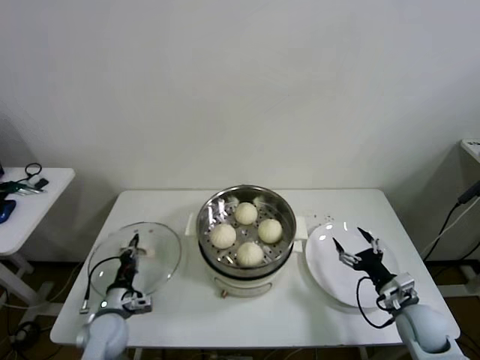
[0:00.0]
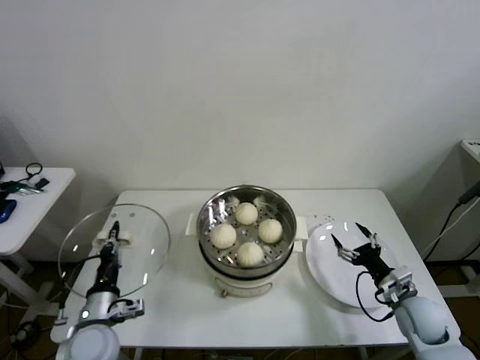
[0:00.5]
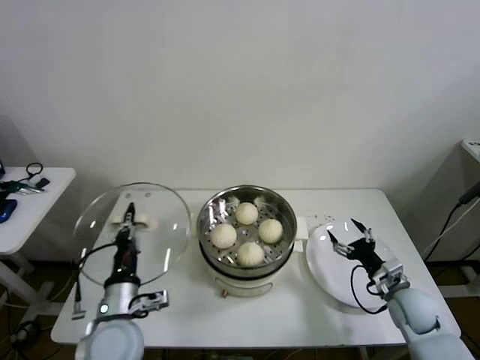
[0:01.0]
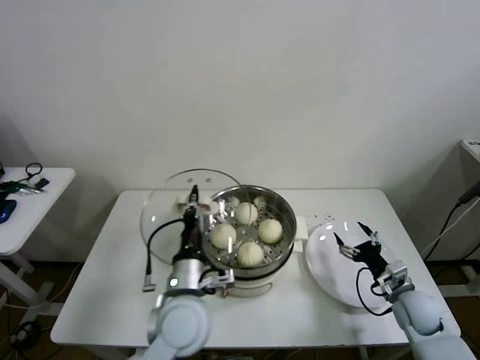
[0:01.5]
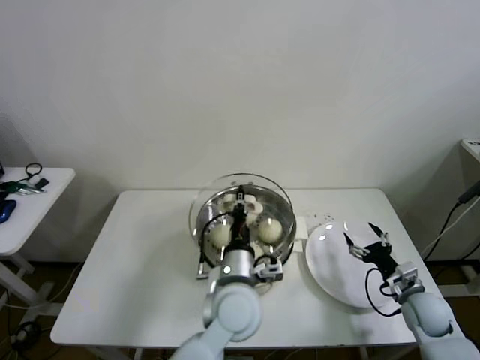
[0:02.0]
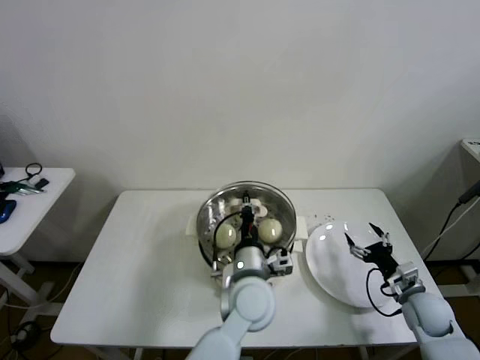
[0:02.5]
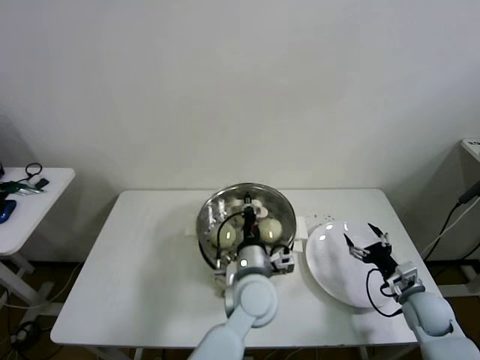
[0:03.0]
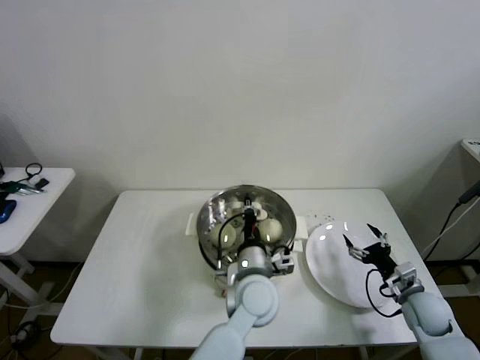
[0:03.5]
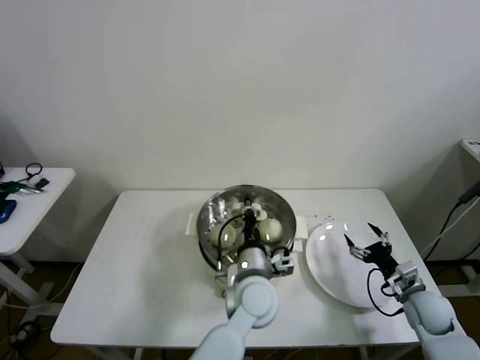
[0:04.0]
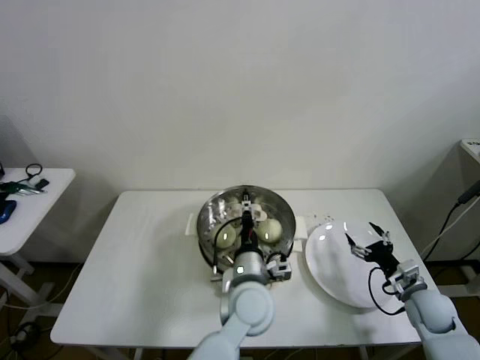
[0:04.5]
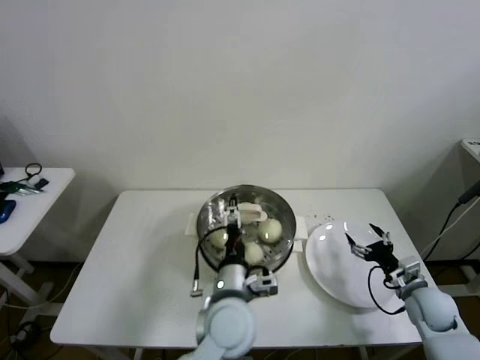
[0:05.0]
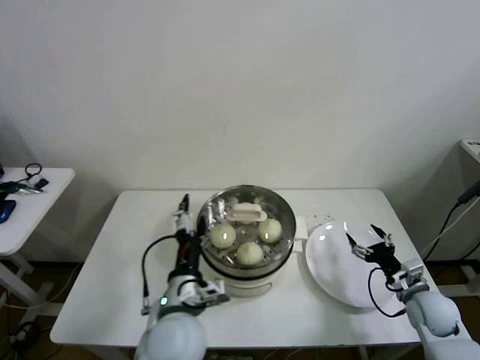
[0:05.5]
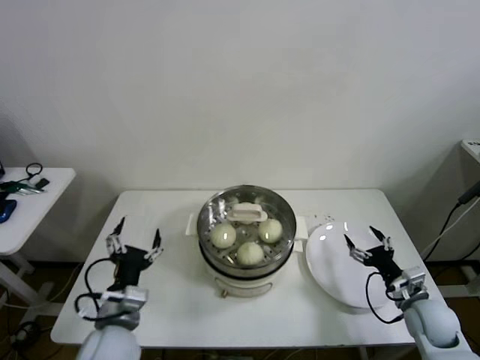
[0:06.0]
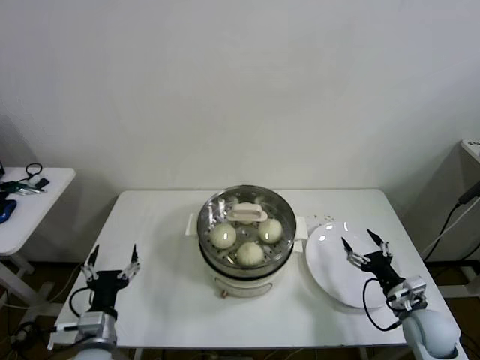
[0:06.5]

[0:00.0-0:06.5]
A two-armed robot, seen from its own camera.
Step, 0:00.0 to 0:04.0: Place the pot lid on the steamer with left gripper.
0:00.0 to 0:02.0: The left gripper heads to the right and upward, covering about 35 cm.
0:02.0 to 0:04.5: The left gripper ends up some 5 cm from where it was, and opens.
0:04.5 to 0:06.5: The right gripper moves approximately 5 cm. The left gripper goes some 30 cm to the left, and opens up.

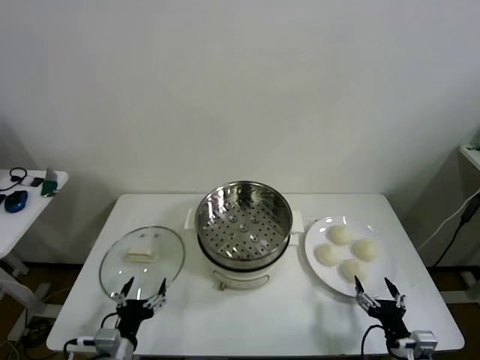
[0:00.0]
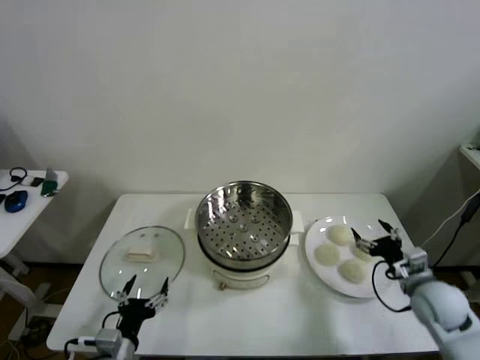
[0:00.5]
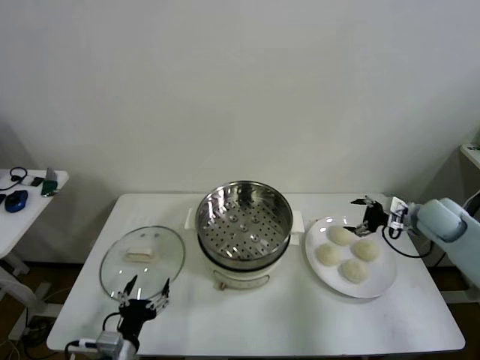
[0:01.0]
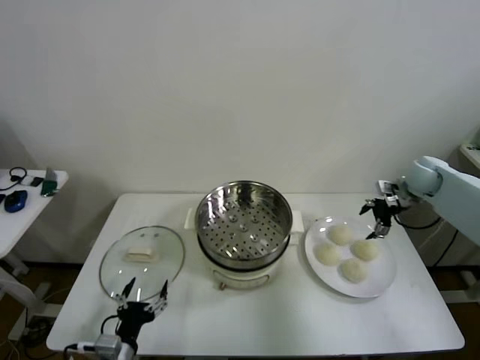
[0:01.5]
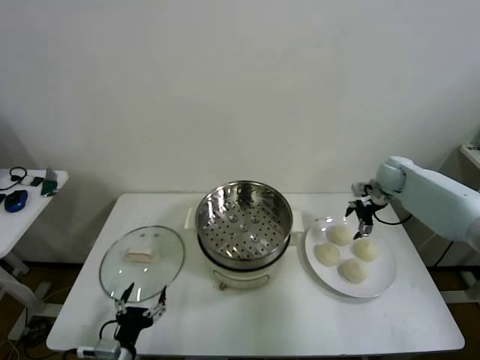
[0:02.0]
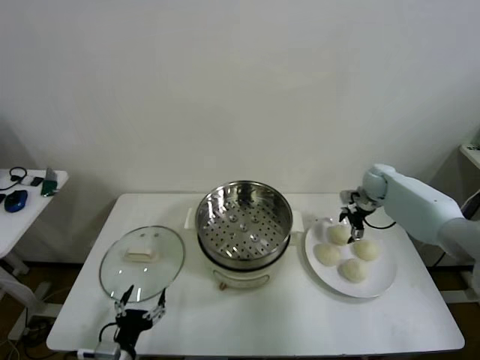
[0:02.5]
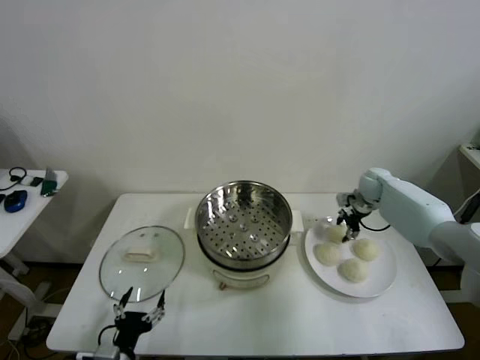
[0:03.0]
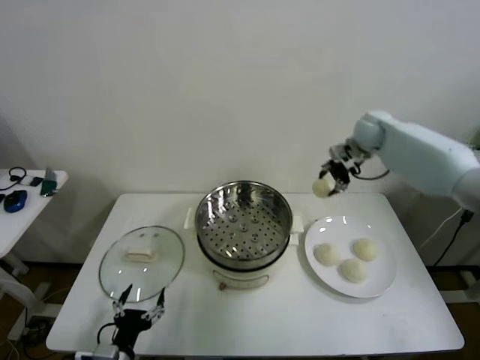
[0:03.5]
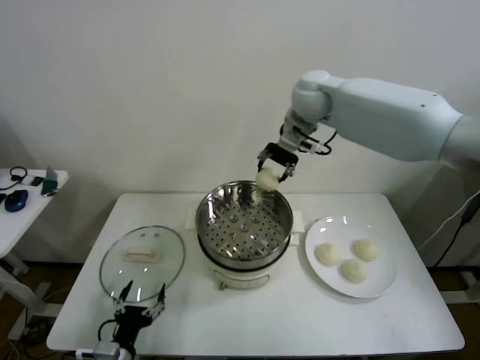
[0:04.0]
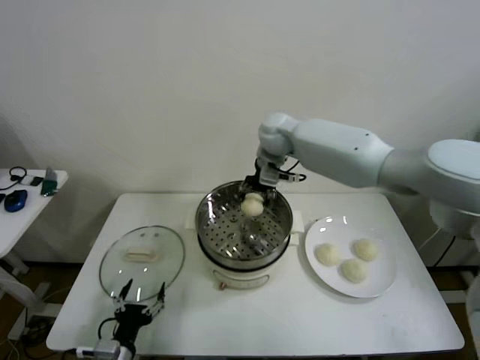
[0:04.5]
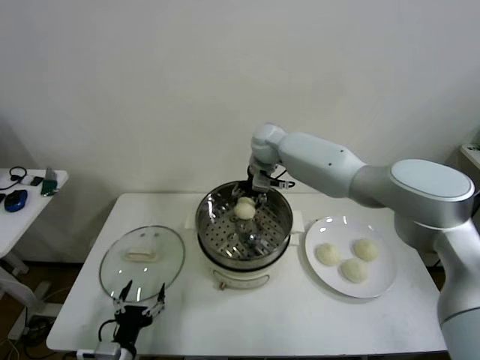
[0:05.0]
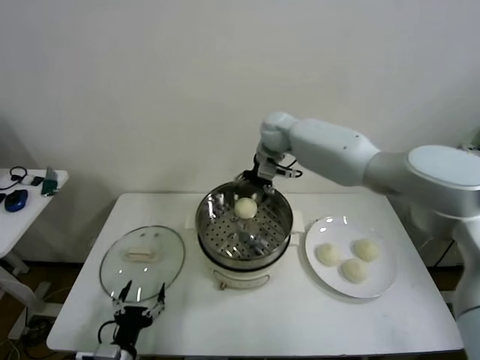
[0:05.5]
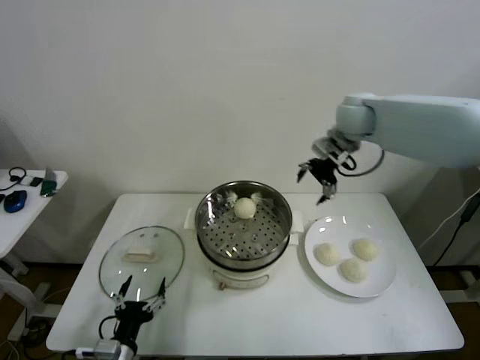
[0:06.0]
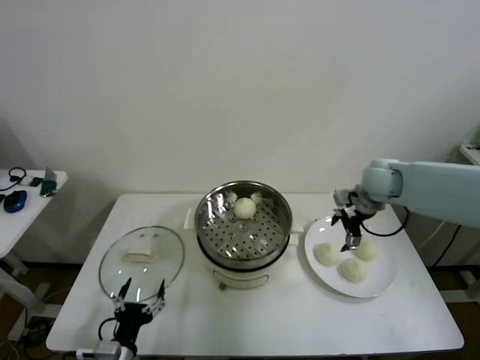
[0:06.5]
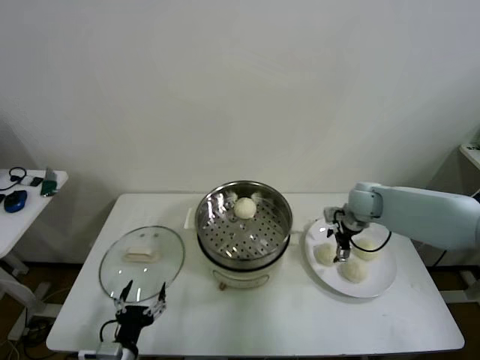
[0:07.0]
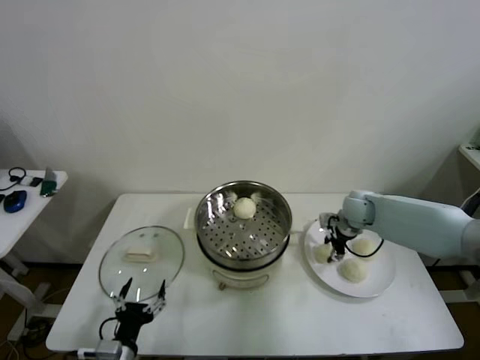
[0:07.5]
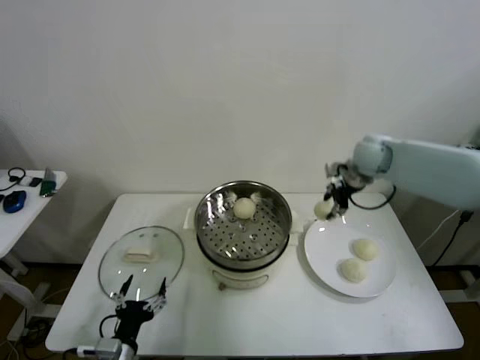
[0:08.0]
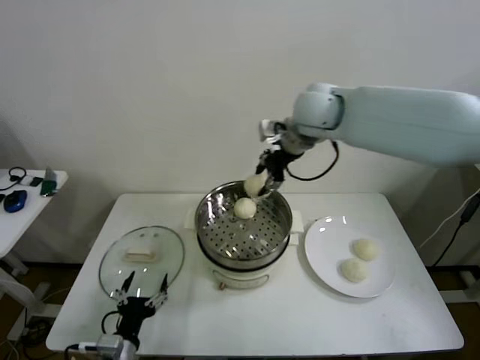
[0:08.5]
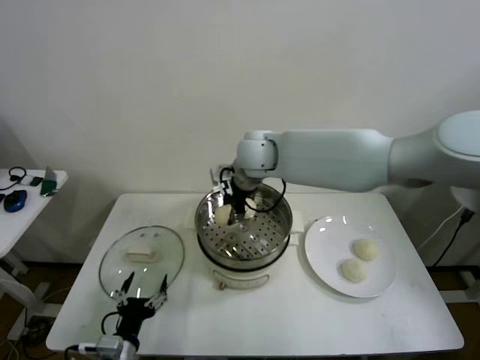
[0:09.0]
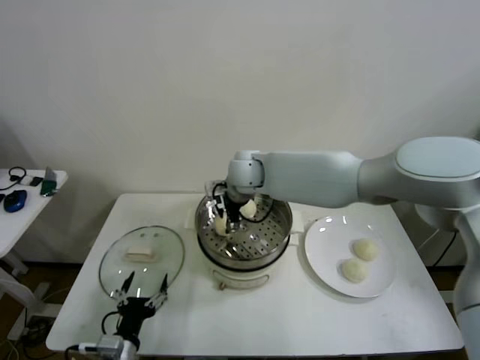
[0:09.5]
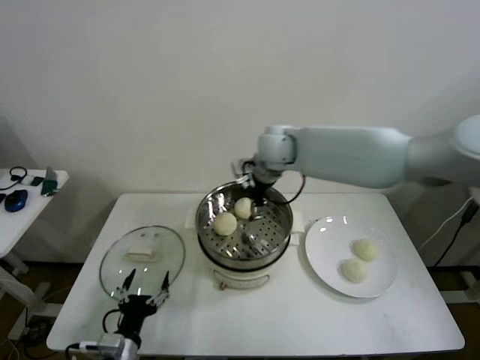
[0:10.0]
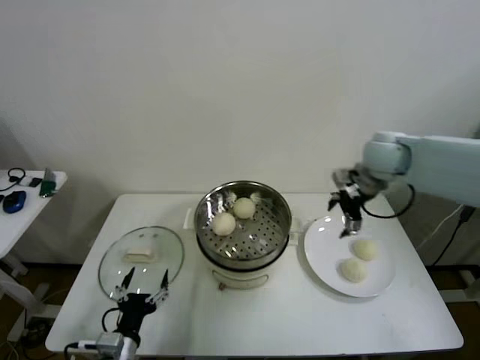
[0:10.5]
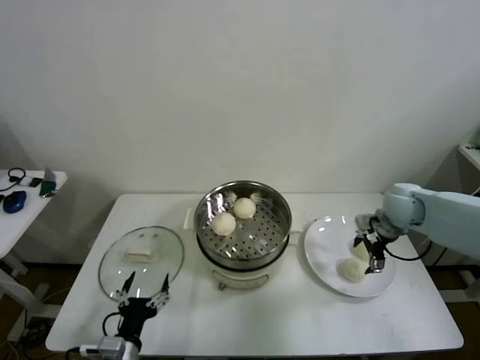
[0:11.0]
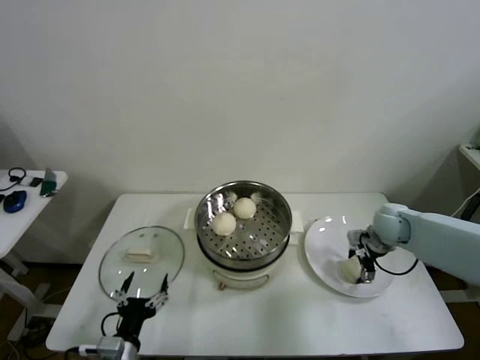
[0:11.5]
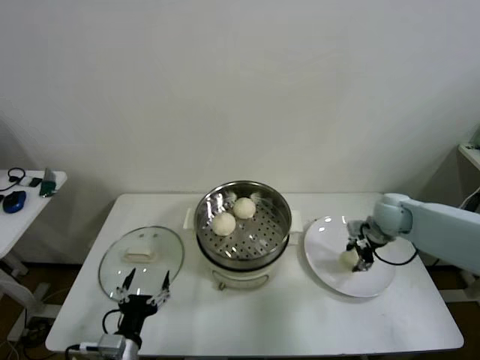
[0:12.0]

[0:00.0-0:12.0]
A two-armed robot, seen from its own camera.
Step, 0:00.0 to 0:02.5: Grasp the baozi in the plate with right gripper.
Step, 0:03.0 to 0:05.0: Place the baozi on the steamer with right gripper.
Step, 0:05.5 to 0:07.0: Grasp the baozi in the plate with right gripper.
Step, 0:08.0 to 0:09.5: Place the baozi on the steamer with right gripper.
Step, 0:10.0 to 0:11.5: Grasp the baozi in the plate with right gripper.
0:02.0 to 0:04.0: The right gripper travels to the left and upward by approximately 35 cm, and closes its fingers.
0:04.0 to 0:06.0: The right gripper travels to the right by roughly 15 cm, and opens its fingers.
0:06.0 to 0:08.0: The right gripper travels downward and back again, about 20 cm each way, and closes.
0:08.0 to 0:10.0: The right gripper heads to the left, covering about 20 cm, and opens its fingers.
0:10.0 to 0:12.0: The right gripper goes some 30 cm to the right and downward, and closes.

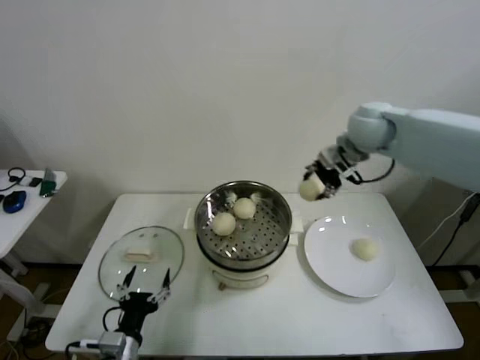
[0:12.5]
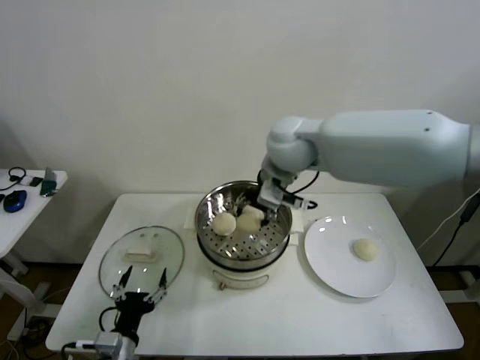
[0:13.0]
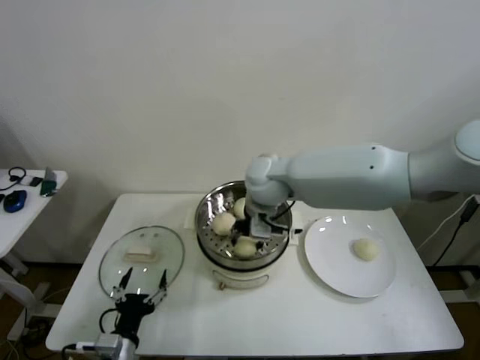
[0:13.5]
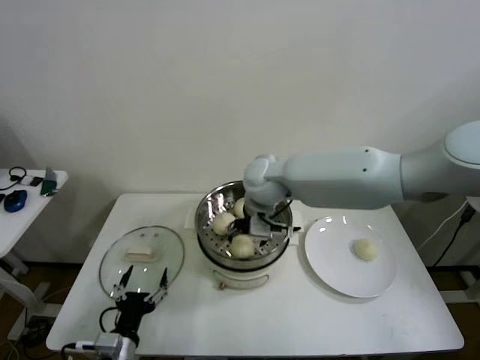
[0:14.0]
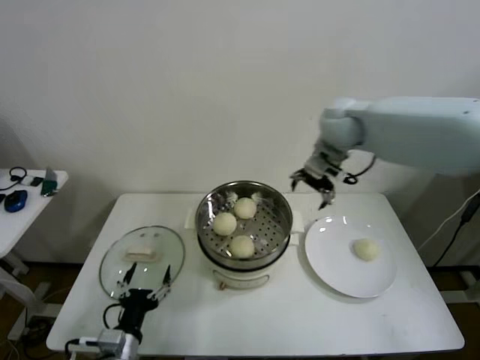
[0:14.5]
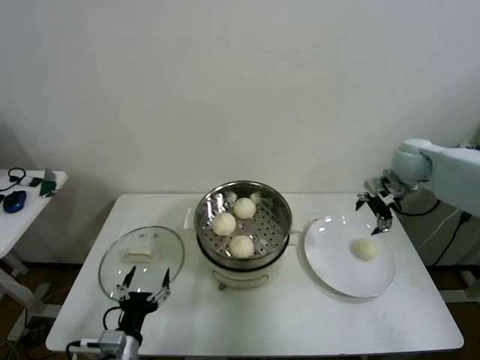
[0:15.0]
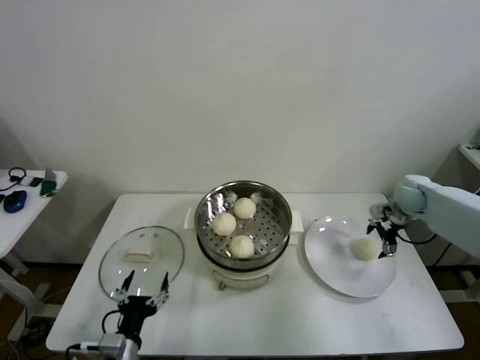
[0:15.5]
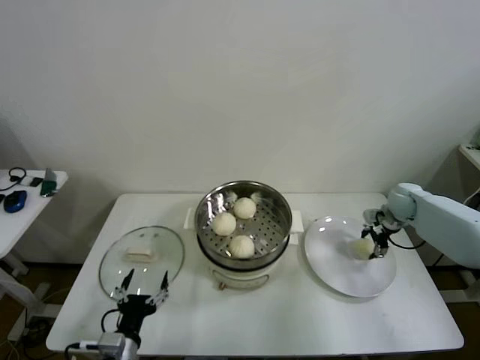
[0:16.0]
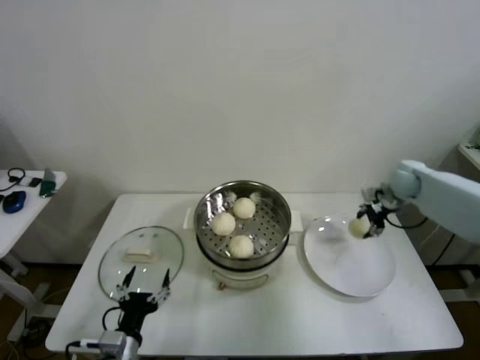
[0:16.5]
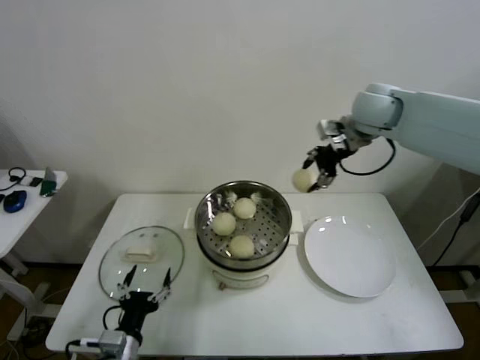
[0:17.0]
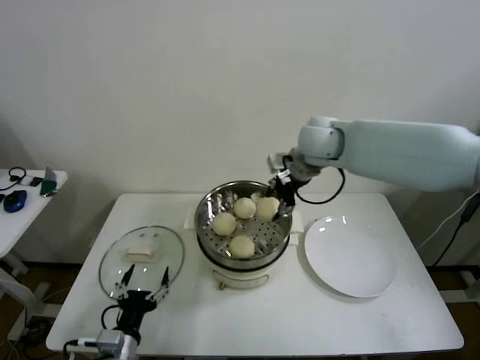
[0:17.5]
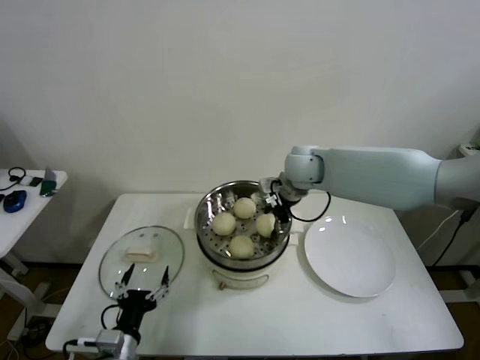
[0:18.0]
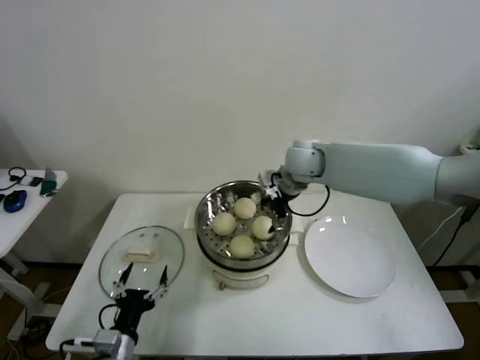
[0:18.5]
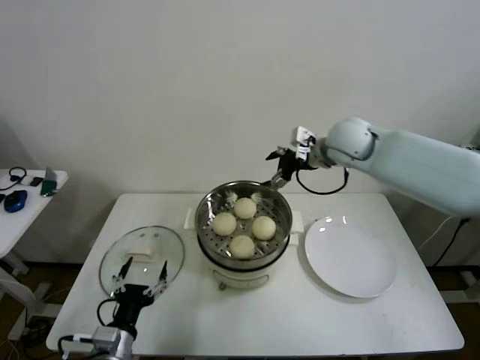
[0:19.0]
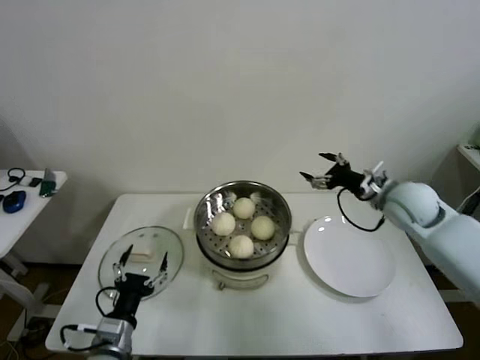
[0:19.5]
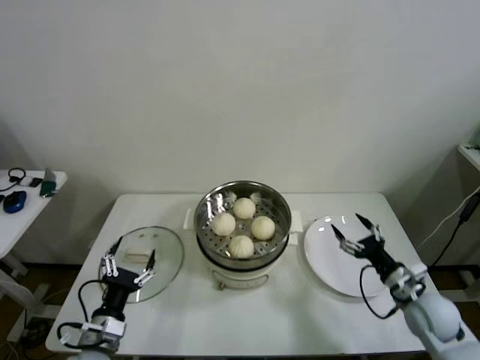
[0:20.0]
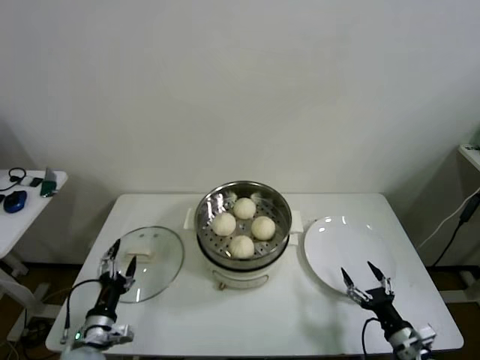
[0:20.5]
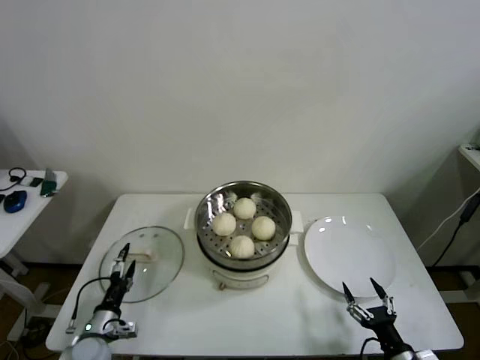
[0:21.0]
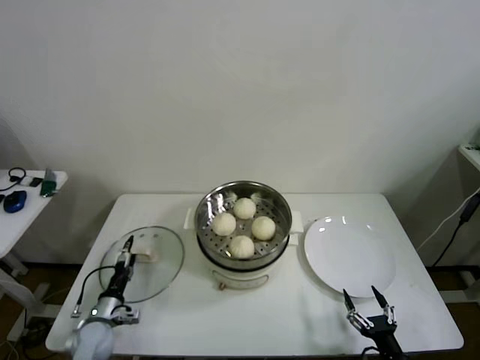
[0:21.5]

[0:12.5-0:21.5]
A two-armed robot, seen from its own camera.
Step, 0:12.5 to 0:13.5: Place the baozi on the steamer with right gripper.
Step, 0:14.0 to 0:16.0: Grasp the baozi in the plate with right gripper.
Step, 0:16.5 to 0:18.0: Place the baozi on the steamer with right gripper.
0:12.5 to 0:14.5: The right gripper goes to the left and returns, about 20 cm each way, and opens.
0:14.5 to 0:17.0: The right gripper moves about 25 cm downward and comes back, and closes up.
0:17.0 to 0:19.5: The right gripper travels downward, backward and to the right by approximately 20 cm, and opens its fingers.
0:19.5 to 0:21.5: The right gripper shifts approximately 40 cm backward and downward. Meanwhile the left gripper moves downward, to the left and forward, approximately 20 cm.
